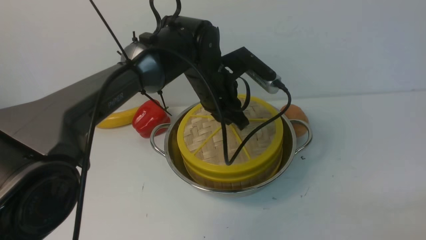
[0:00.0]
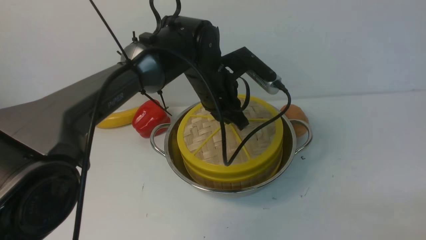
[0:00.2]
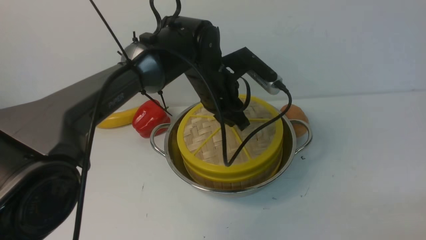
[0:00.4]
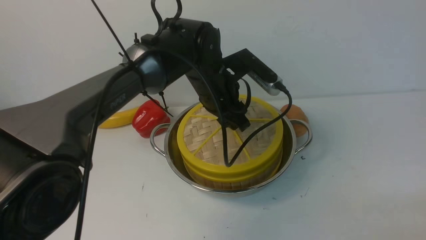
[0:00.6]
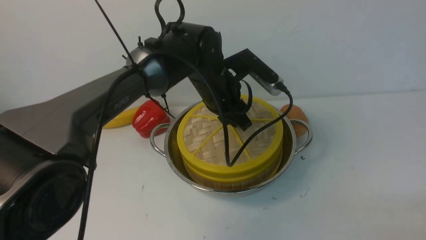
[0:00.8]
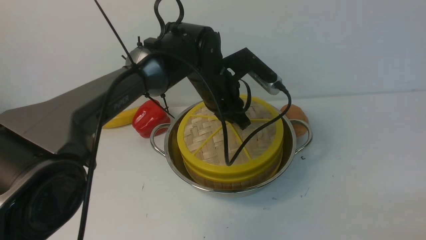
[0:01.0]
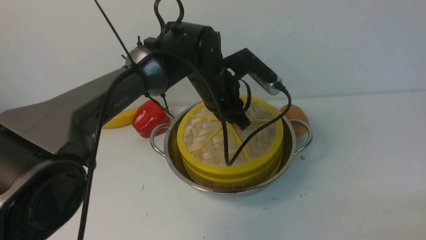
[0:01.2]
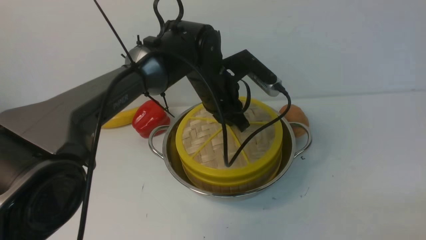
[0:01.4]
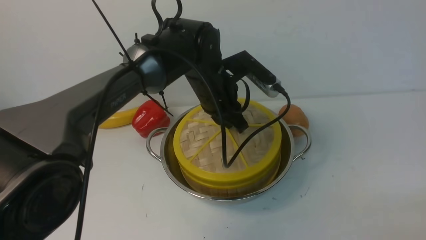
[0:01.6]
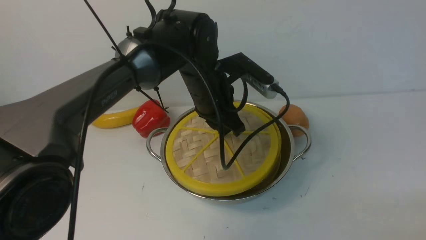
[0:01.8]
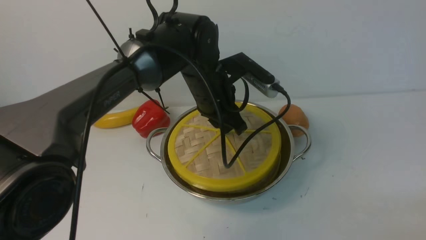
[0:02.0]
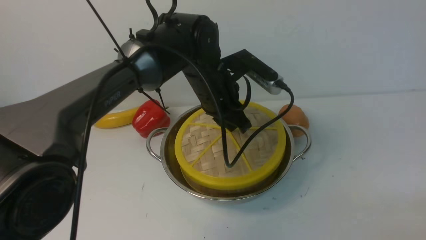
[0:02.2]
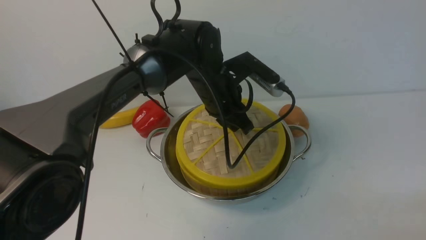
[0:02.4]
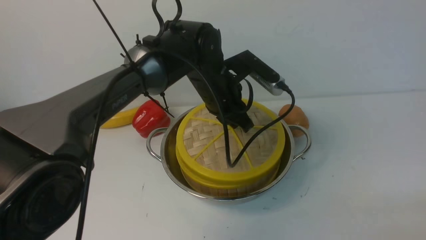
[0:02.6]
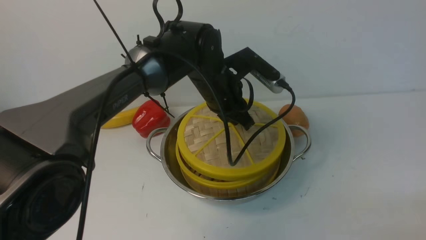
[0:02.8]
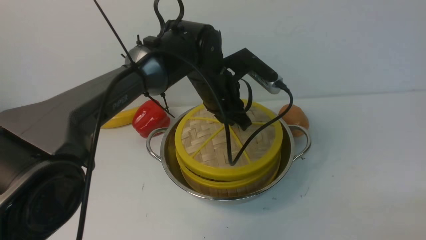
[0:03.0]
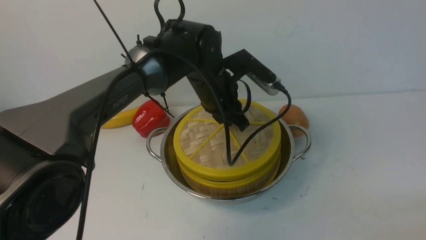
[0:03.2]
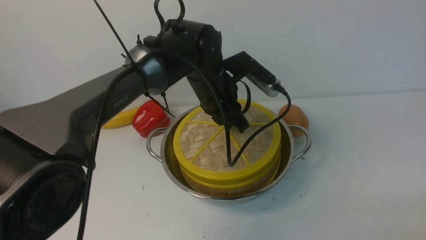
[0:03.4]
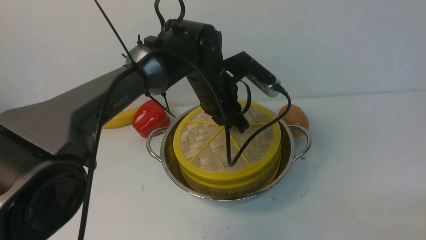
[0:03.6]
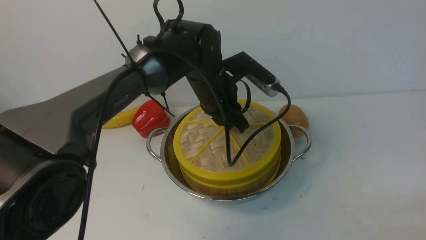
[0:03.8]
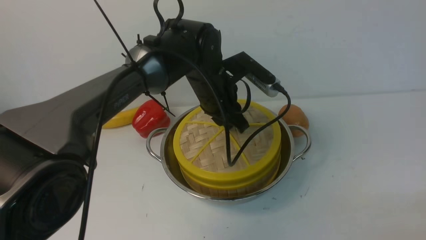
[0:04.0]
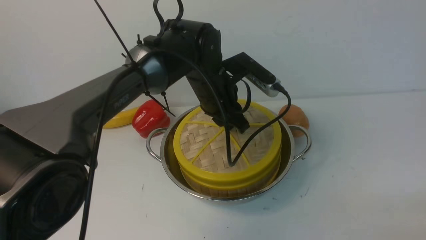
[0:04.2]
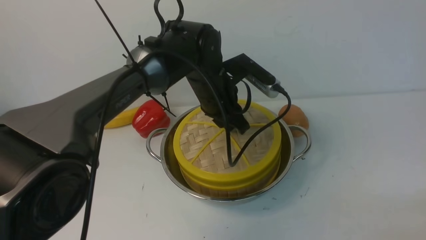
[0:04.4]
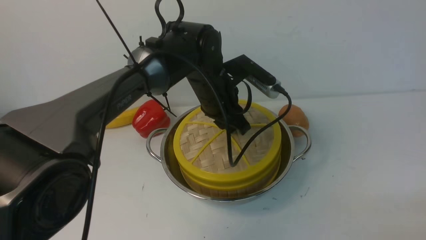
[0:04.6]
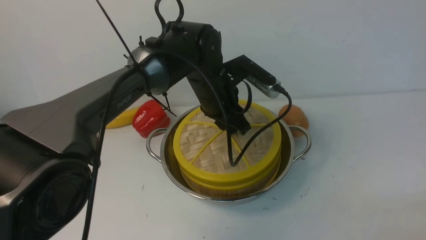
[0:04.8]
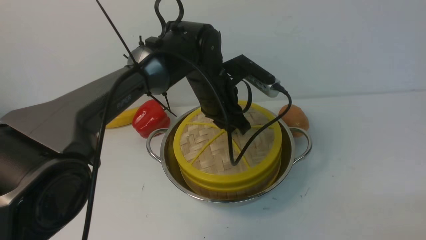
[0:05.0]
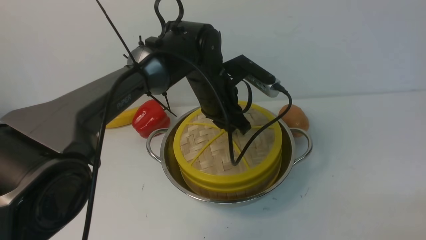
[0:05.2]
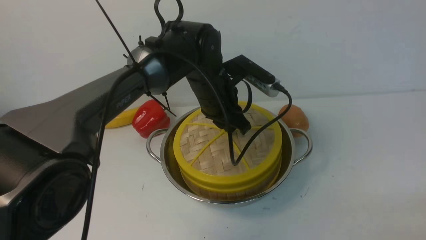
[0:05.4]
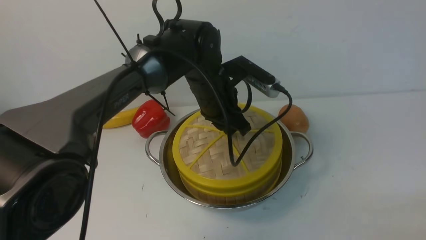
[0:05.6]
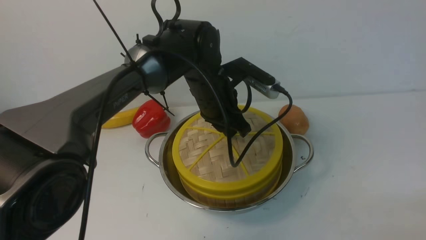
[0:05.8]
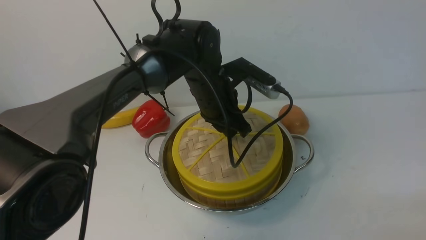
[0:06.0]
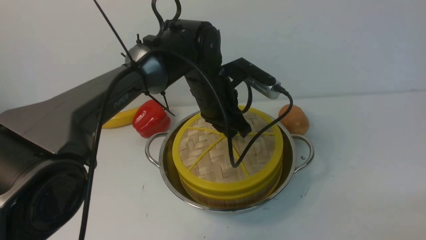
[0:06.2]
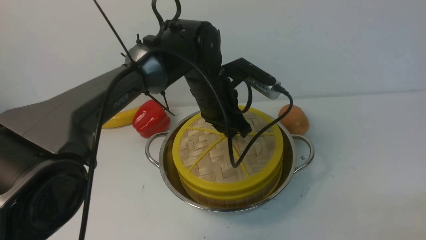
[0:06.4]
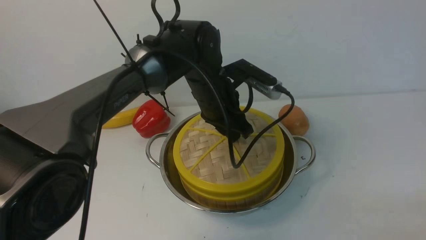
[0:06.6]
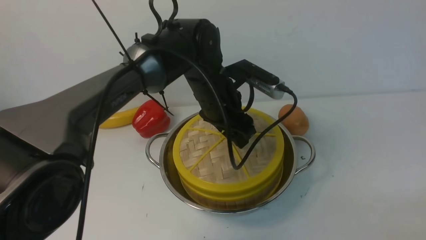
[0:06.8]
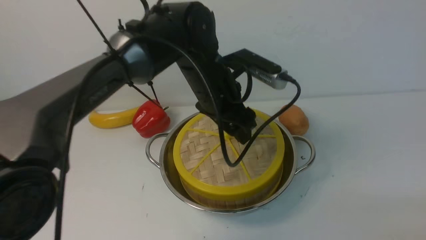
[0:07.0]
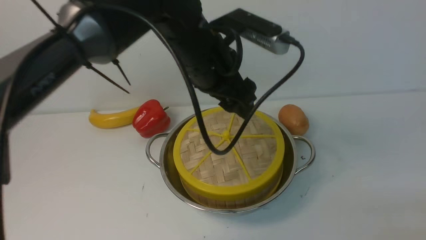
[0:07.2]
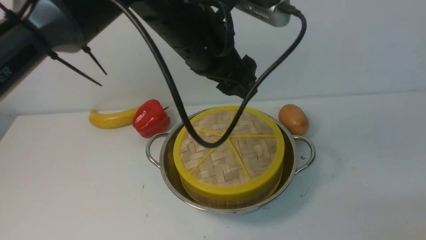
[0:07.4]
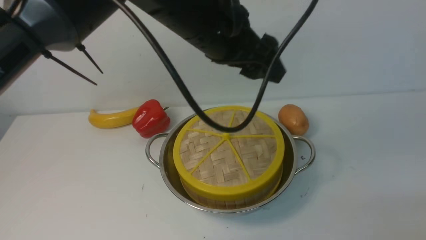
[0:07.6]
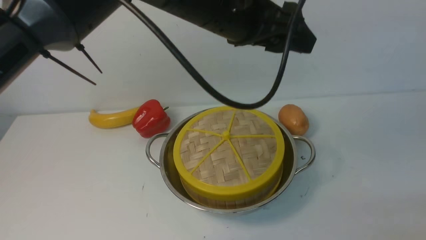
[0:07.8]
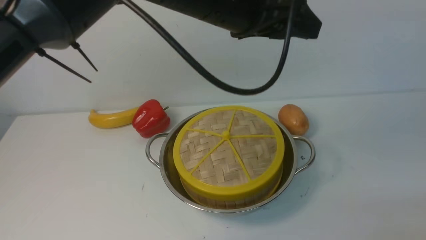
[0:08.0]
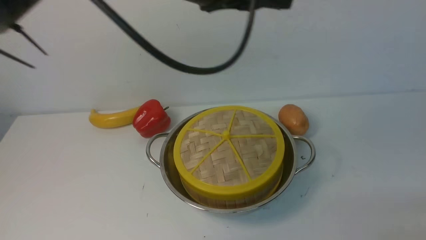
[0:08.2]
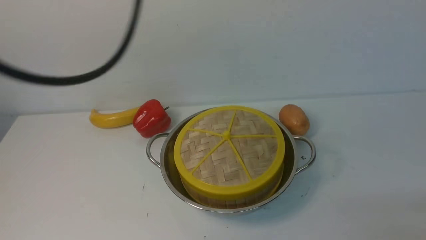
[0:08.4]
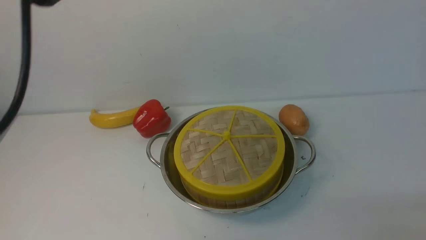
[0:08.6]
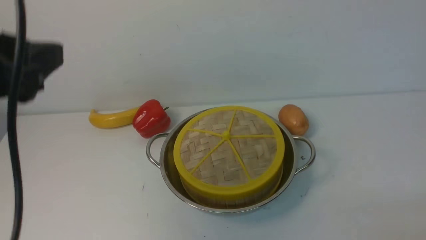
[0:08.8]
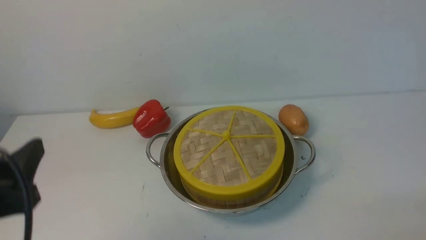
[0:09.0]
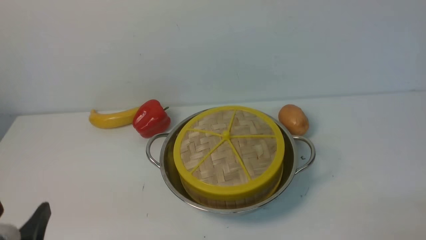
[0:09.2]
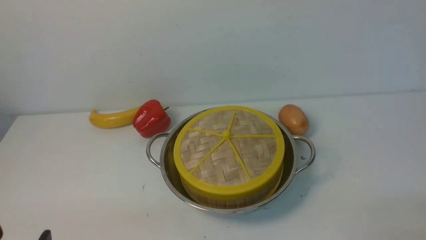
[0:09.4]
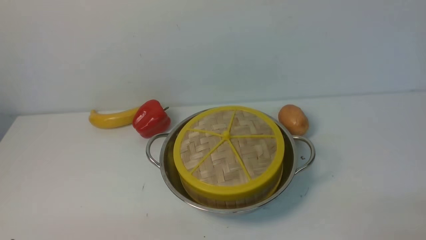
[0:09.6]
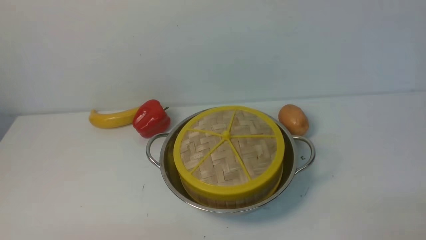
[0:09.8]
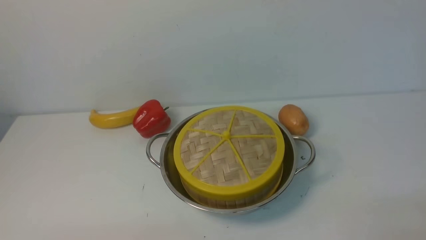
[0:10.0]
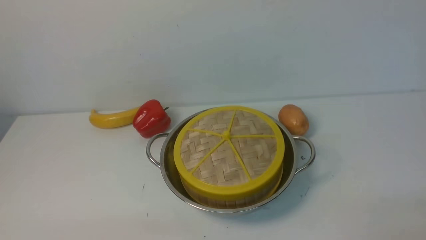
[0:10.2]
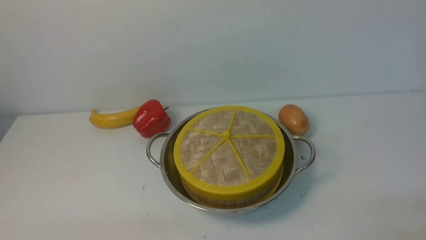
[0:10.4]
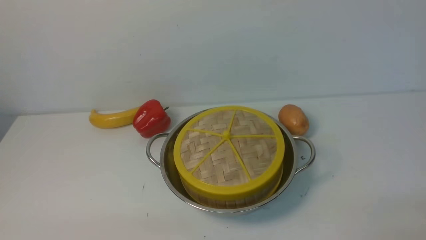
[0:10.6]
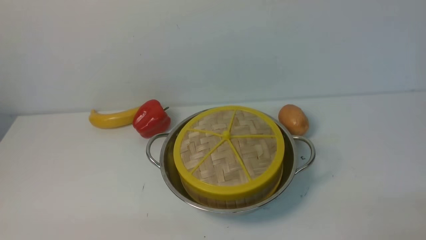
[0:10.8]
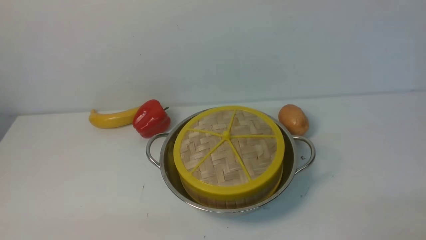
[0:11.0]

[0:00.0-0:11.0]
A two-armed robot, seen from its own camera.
Task of the whole recording: place the steamer in the pot on the white table, and put the lid on the steamer.
Step, 0:00.0 to 0:08.4: use the left arm to place the steamer lid on the steamer.
0:00.0 to 0:01.6: The left gripper opens, then closes once more.
0:01.6 to 0:03.2: Both grippers stay about where they are.
0:03.2 to 0:04.8: The grippers move only a little.
0:04.8 to 0:06.2: The two grippers keep their place.
0:06.2 to 0:07.8: The left gripper moves upward, approximately 15 cm, and opens.
0:07.8 to 0:09.4: The left gripper goes some 40 cm backward, to the left and downward.

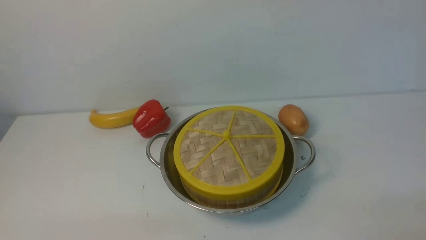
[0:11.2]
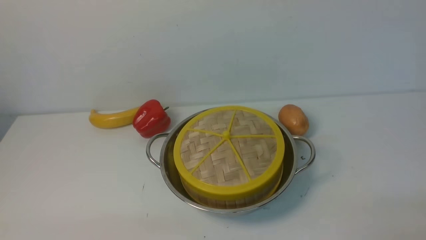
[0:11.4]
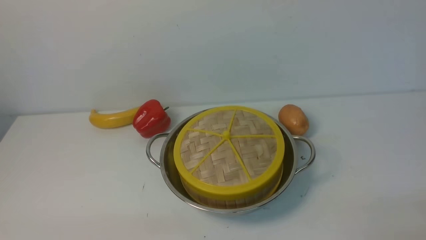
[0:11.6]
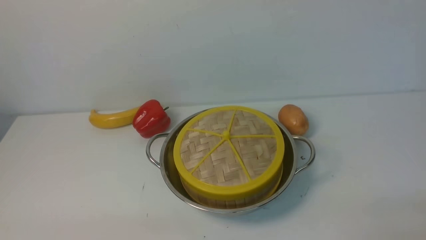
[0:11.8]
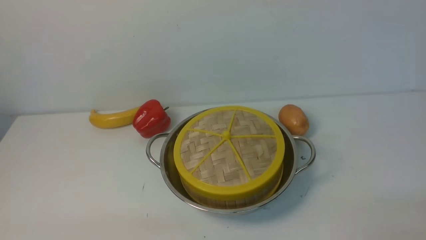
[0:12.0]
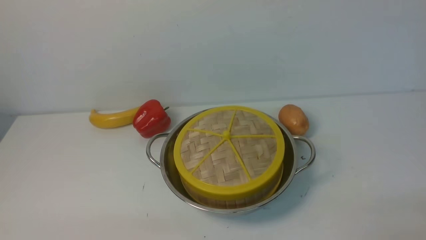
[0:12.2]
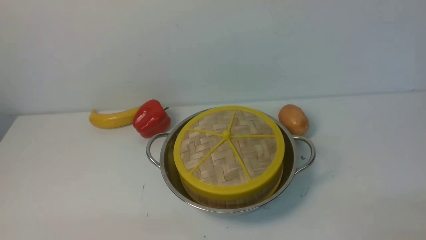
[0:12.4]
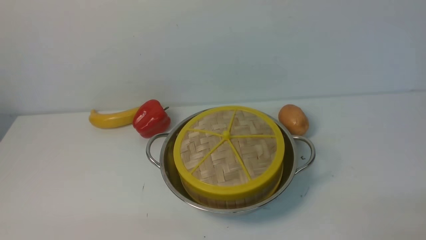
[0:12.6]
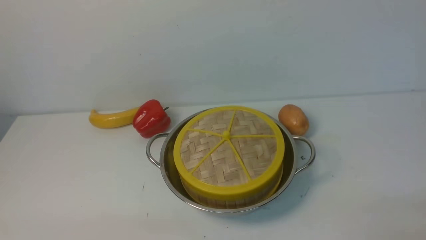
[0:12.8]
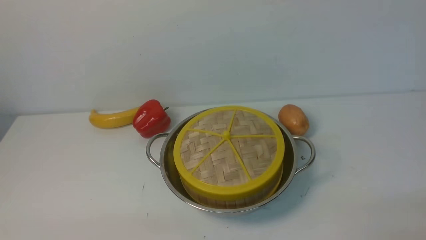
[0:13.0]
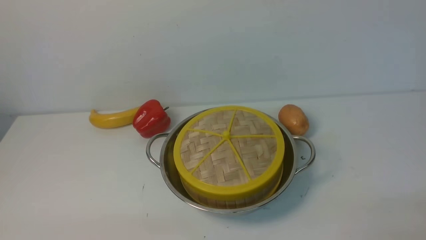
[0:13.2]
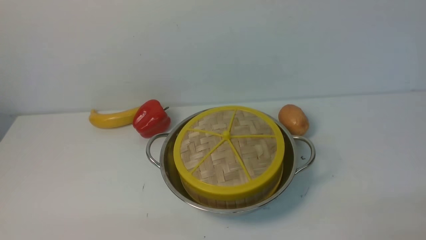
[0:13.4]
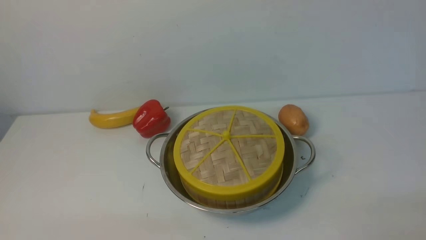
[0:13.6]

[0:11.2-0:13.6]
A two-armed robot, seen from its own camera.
Task of the whole recording: place the steamer in the pot on the white table, and put the lid on the steamer.
0:11.2 to 0:13.6: Neither gripper changes place.

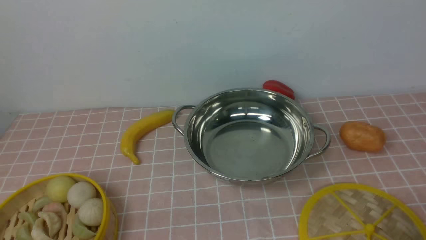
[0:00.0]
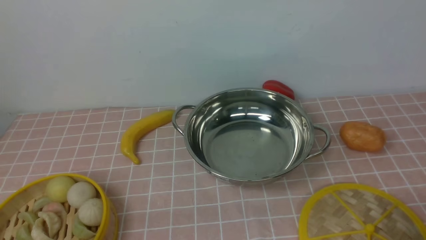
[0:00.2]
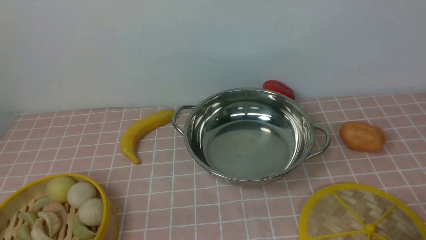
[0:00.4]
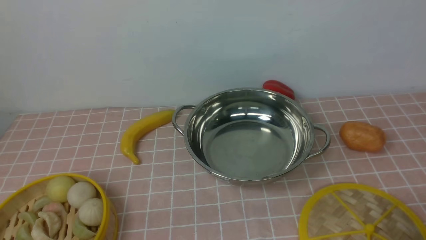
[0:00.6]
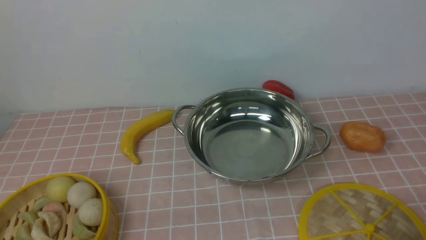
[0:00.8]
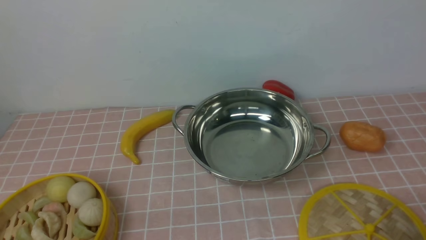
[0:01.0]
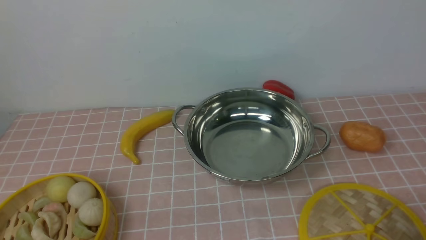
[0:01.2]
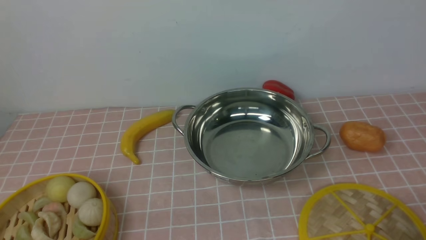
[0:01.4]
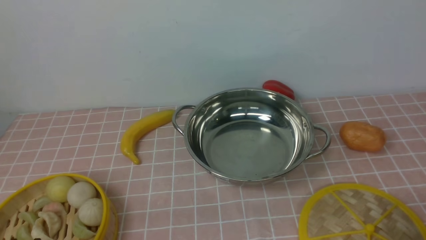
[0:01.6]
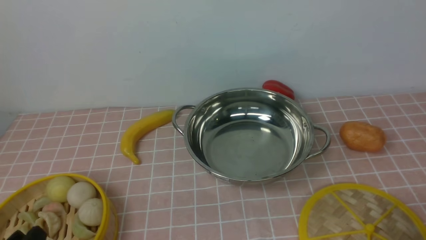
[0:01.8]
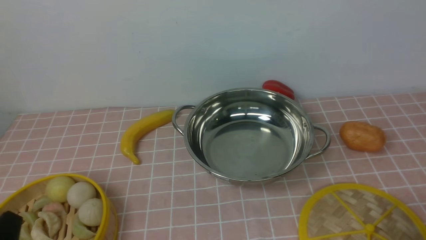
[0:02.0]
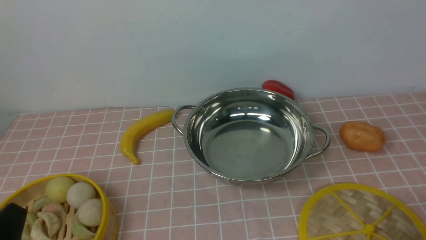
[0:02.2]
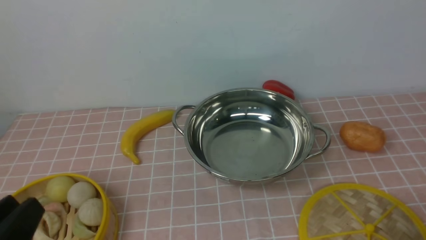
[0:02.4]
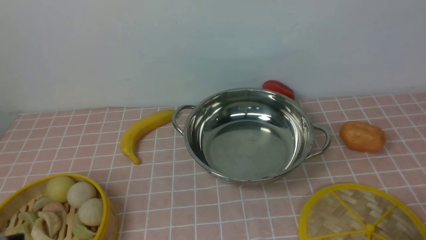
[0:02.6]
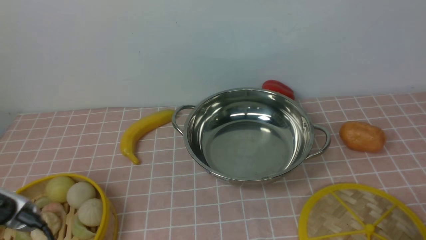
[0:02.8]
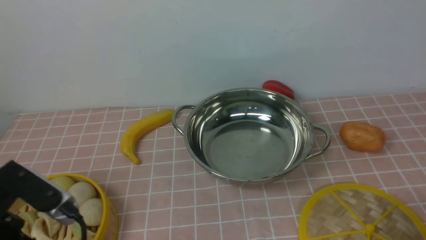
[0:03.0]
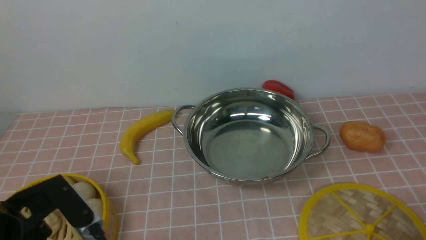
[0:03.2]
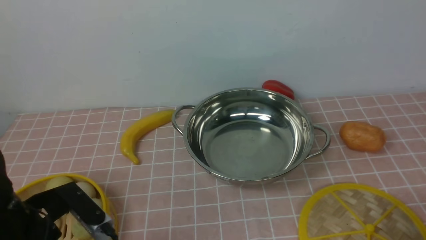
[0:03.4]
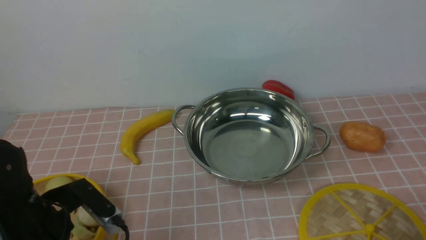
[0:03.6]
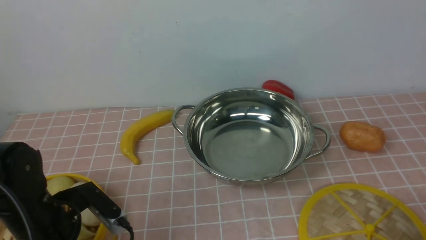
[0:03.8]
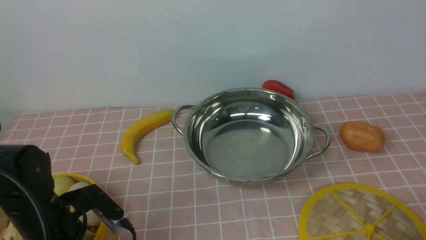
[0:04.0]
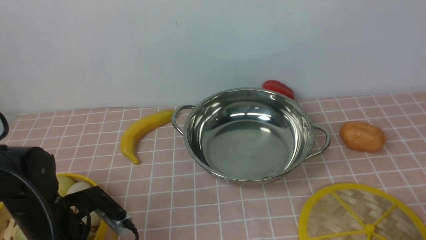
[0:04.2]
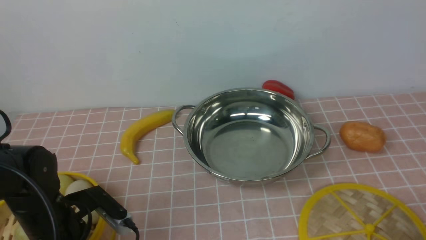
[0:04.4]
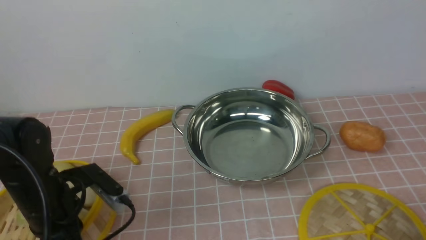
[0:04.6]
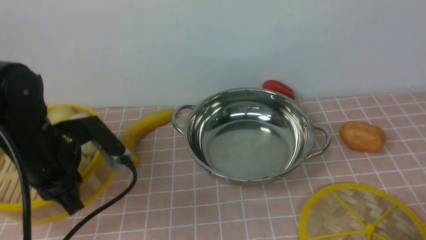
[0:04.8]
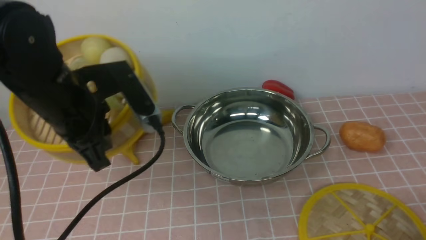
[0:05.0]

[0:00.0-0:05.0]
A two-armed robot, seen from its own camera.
Task of the whole recording: place the steamer in the pot on the pink tablecloth, and put the lid on the steamer.
Step, 0:00.0 to 0:04.4: use the left arm to lift the steamer closest to it.
0:01.6 to 0:03.4: The left gripper shifts approximately 10 cm forward.
0:03.4 to 0:05.0: The left gripper travels forward, upward and to the right by roughly 15 cm, and closes.
